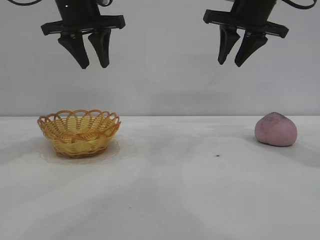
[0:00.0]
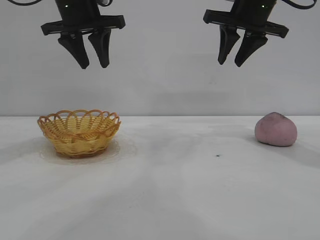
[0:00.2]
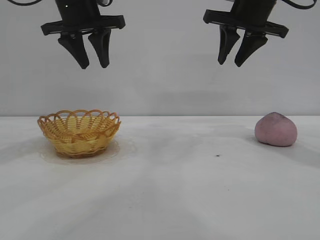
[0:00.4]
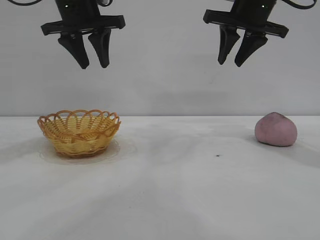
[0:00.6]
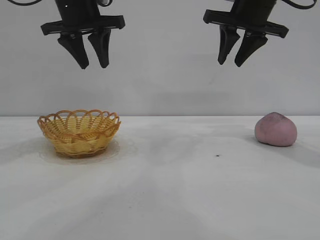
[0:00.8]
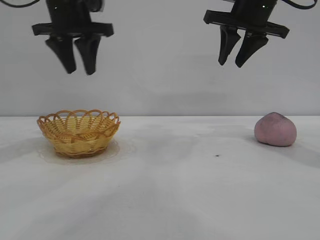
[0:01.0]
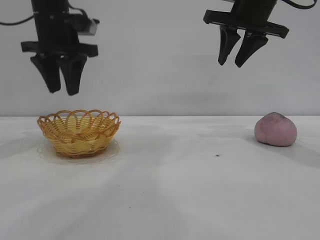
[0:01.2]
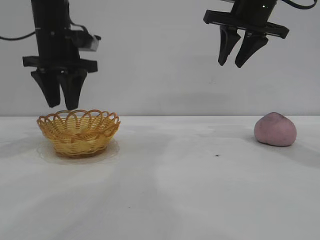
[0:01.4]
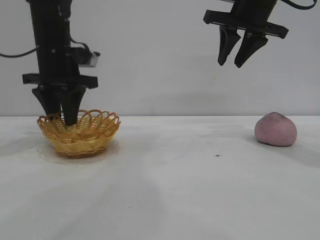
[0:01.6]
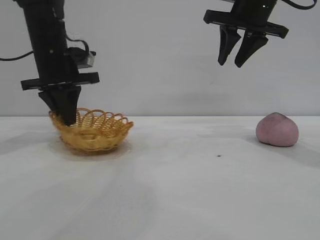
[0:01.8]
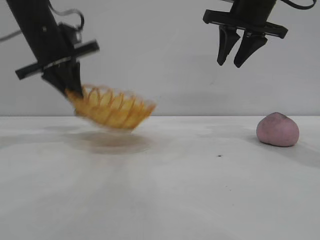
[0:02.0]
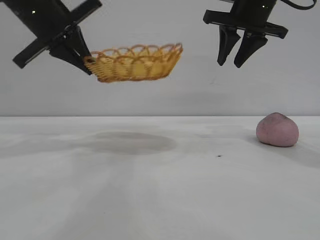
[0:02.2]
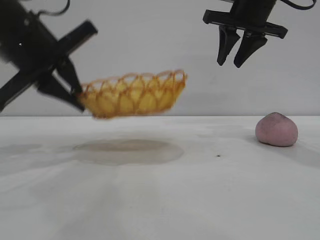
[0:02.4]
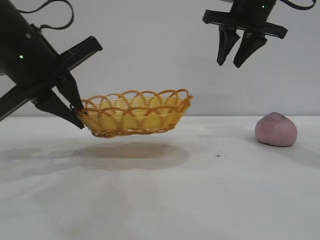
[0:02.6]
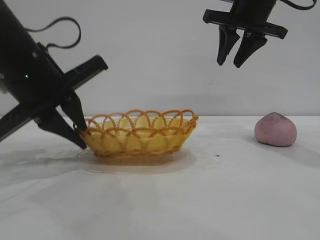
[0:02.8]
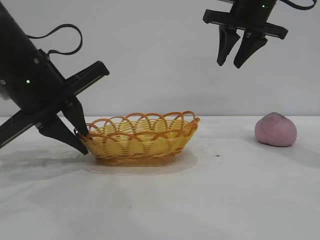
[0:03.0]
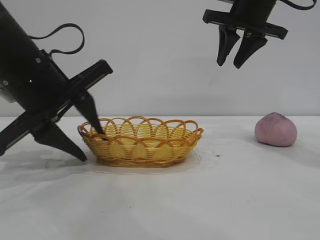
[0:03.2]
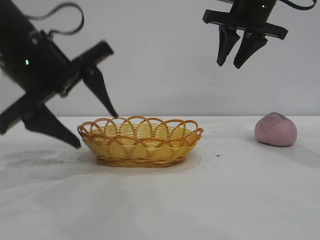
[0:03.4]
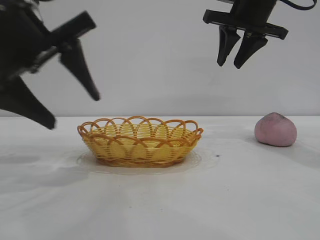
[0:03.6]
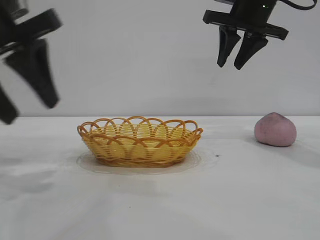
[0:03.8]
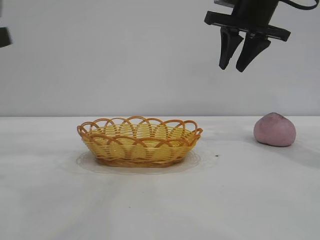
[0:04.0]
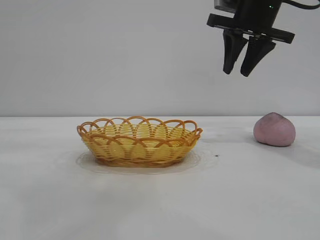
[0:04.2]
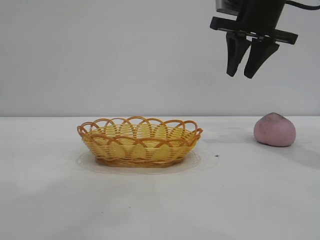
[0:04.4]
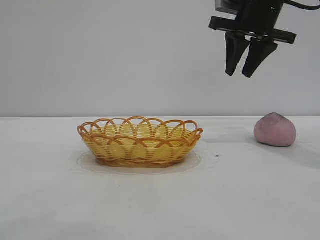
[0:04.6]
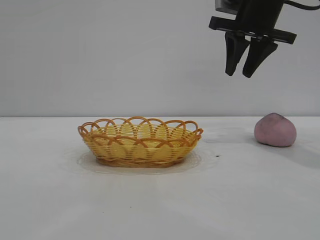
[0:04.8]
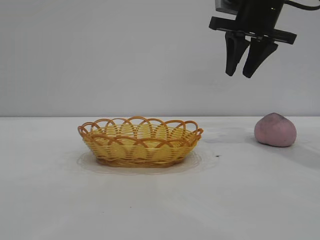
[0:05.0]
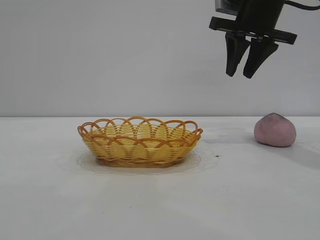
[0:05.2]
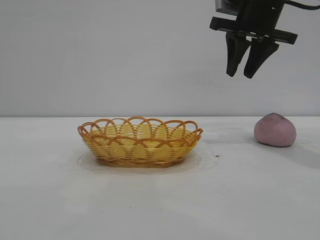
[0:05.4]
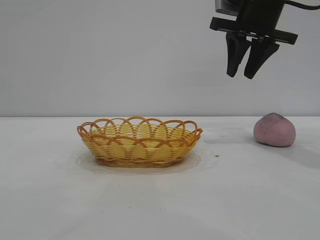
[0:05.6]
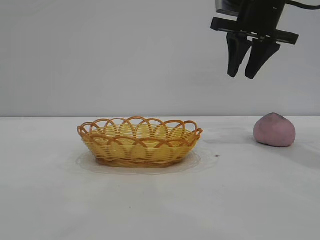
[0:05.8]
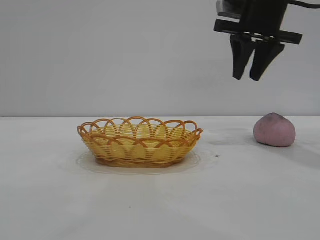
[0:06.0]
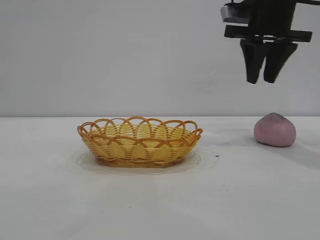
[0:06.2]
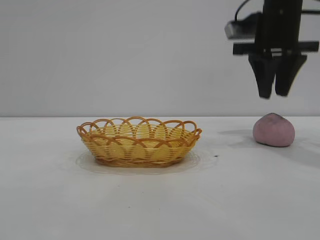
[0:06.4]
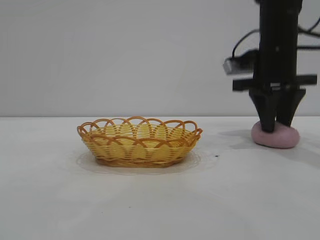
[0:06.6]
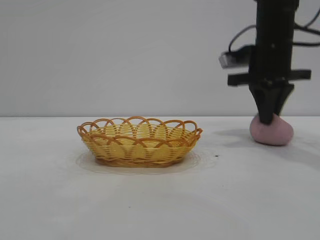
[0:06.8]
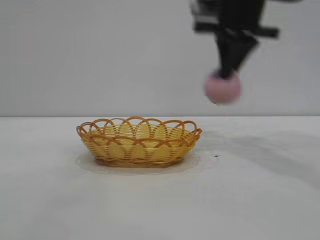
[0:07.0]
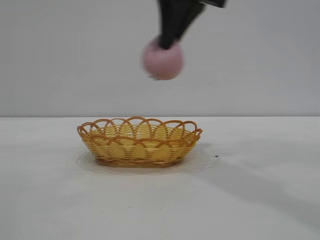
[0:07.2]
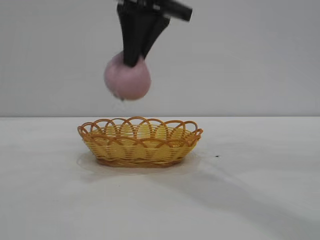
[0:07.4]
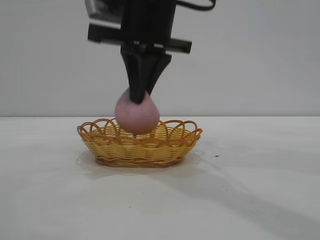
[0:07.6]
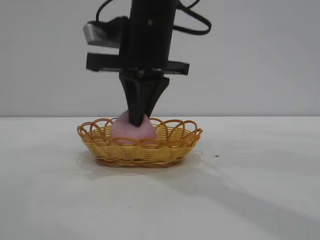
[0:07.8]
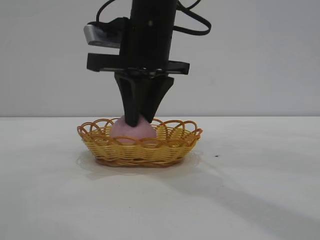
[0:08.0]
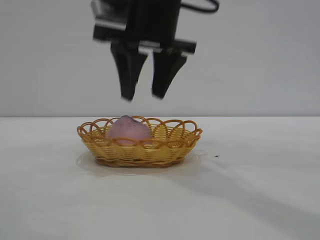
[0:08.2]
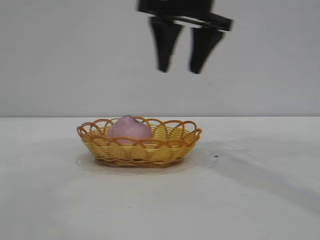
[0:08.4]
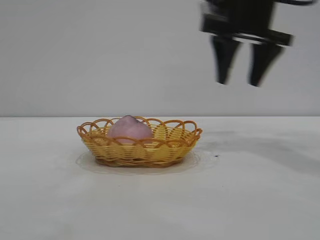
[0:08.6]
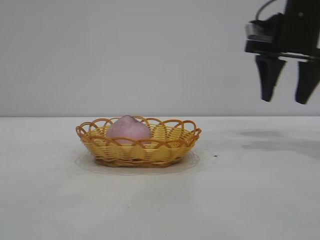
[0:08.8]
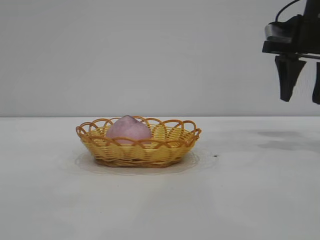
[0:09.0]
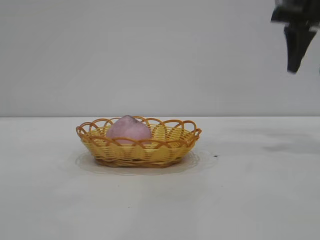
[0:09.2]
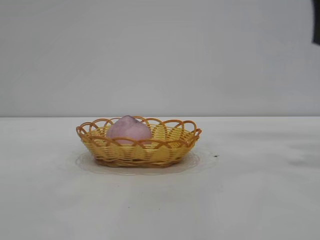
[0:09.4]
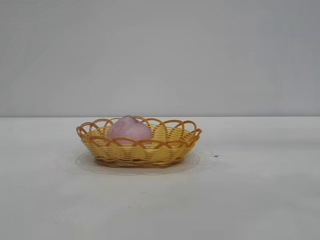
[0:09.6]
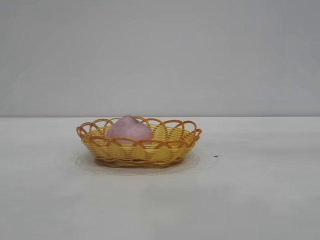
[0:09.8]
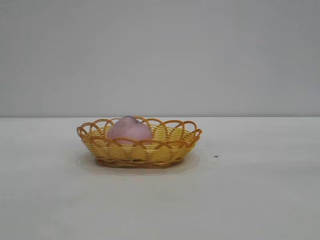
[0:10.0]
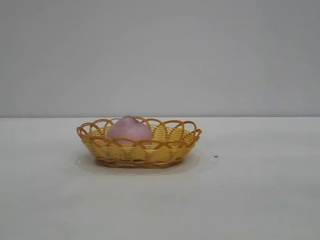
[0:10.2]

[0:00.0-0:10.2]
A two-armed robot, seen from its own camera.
Task of the whole recording: pick up the peach and put it into the basket.
Step, 0:00.0 to 0:03.4: Move the basket to the center of view.
Step, 0:03.6 to 0:06.8: Pick up the peach.
Step, 0:07.0 to 0:08.2: place the peach into the basket.

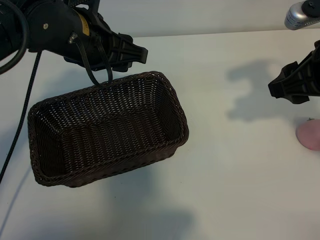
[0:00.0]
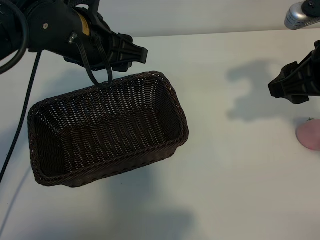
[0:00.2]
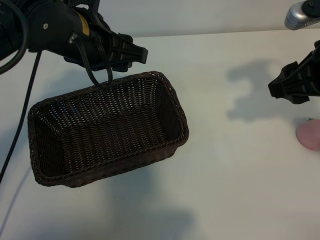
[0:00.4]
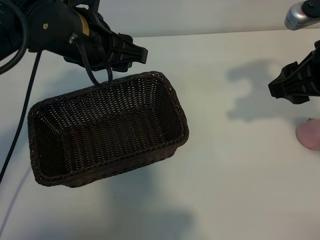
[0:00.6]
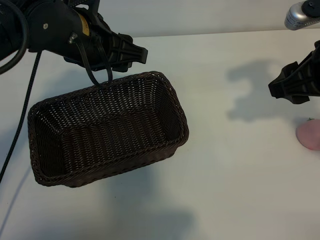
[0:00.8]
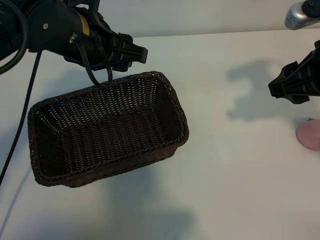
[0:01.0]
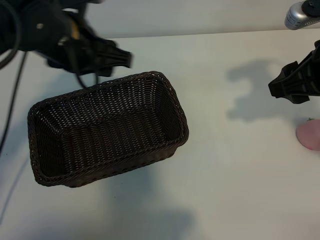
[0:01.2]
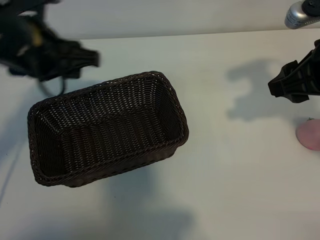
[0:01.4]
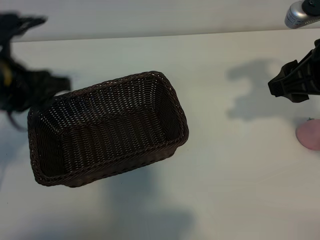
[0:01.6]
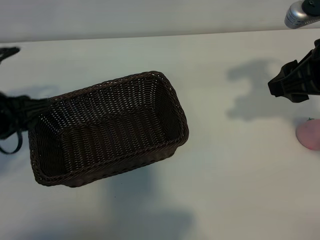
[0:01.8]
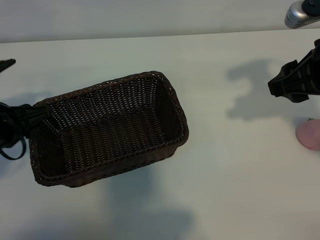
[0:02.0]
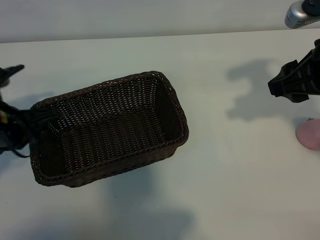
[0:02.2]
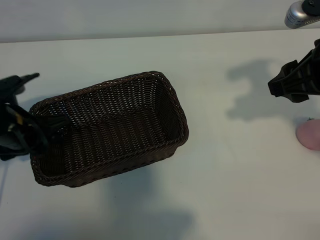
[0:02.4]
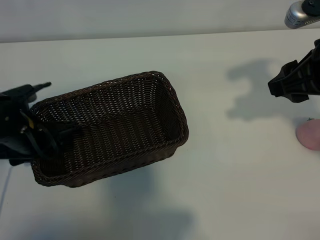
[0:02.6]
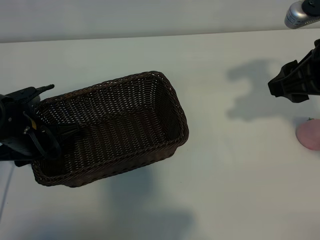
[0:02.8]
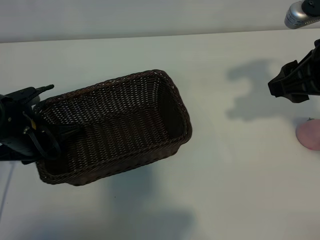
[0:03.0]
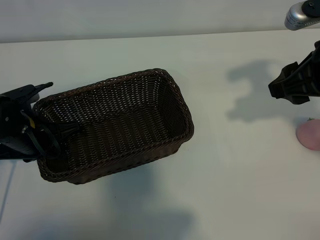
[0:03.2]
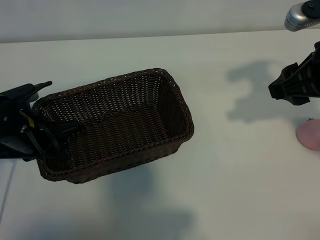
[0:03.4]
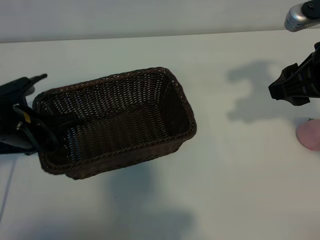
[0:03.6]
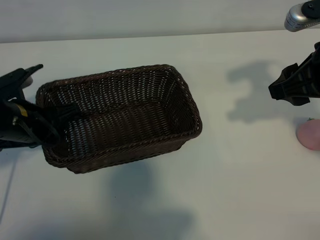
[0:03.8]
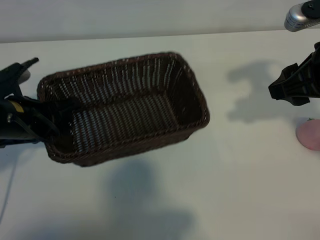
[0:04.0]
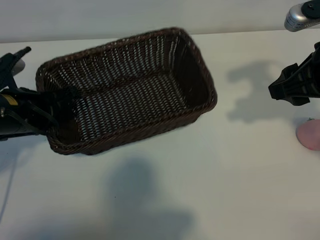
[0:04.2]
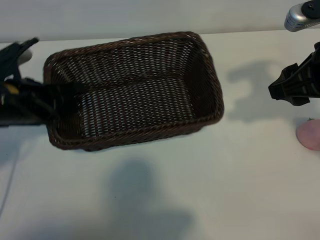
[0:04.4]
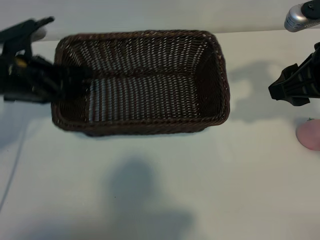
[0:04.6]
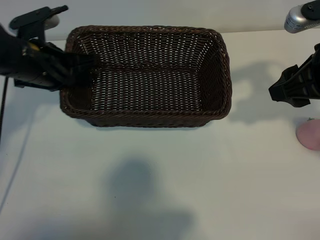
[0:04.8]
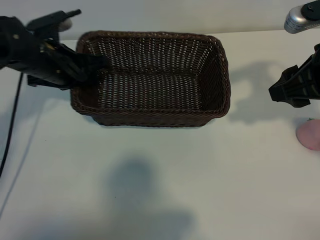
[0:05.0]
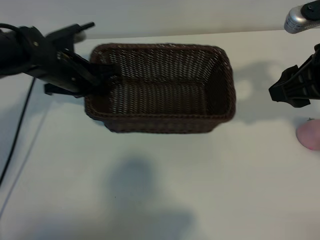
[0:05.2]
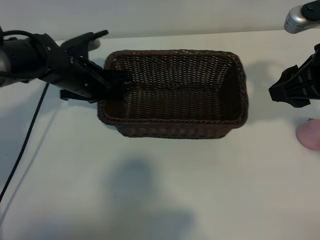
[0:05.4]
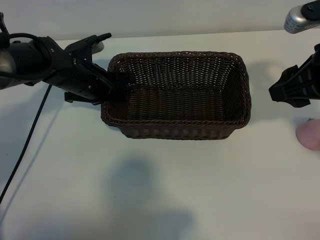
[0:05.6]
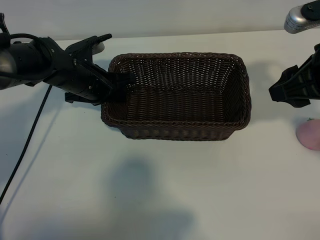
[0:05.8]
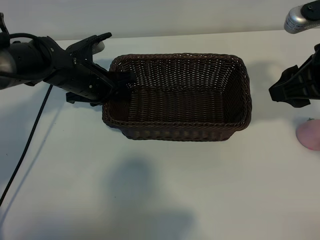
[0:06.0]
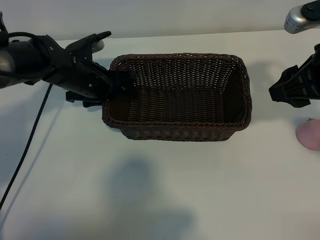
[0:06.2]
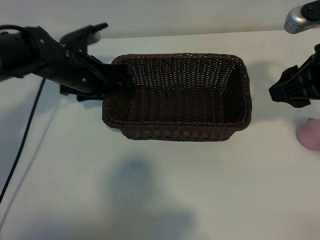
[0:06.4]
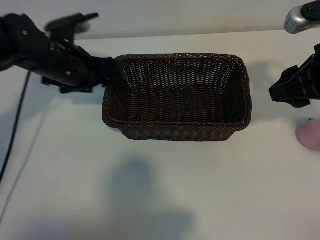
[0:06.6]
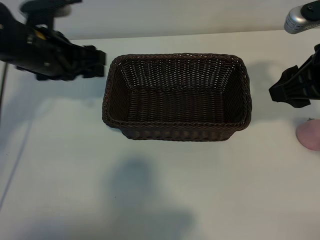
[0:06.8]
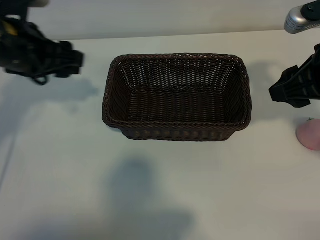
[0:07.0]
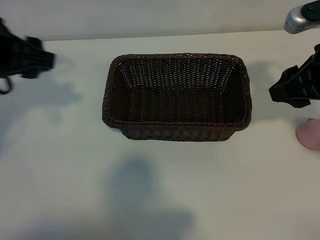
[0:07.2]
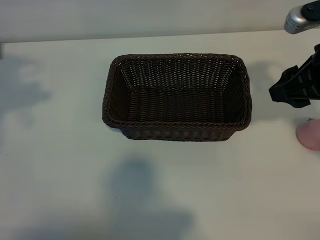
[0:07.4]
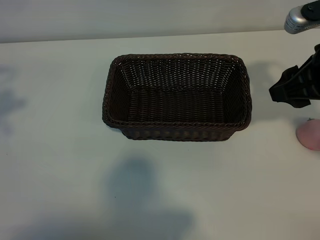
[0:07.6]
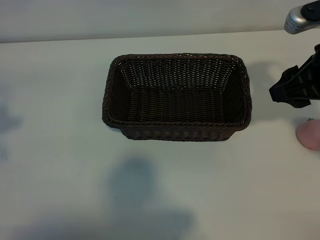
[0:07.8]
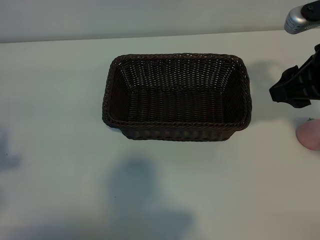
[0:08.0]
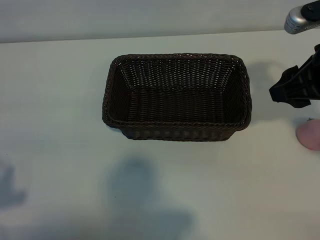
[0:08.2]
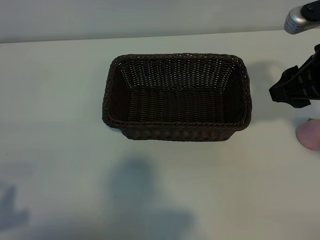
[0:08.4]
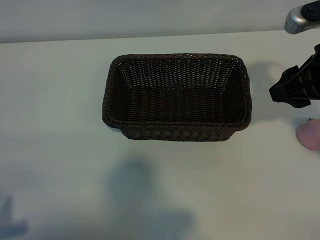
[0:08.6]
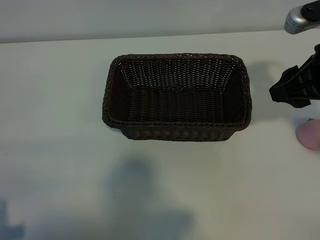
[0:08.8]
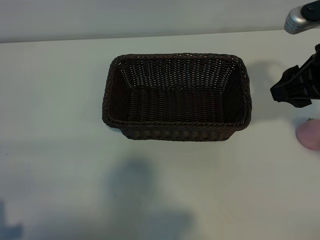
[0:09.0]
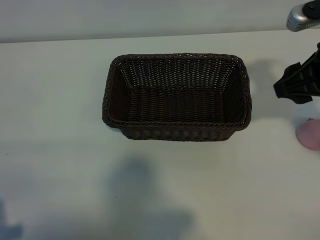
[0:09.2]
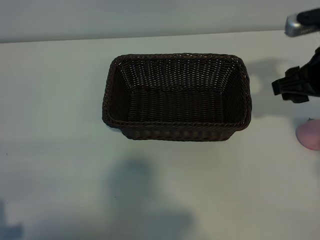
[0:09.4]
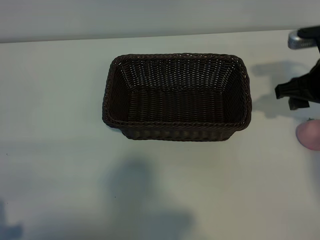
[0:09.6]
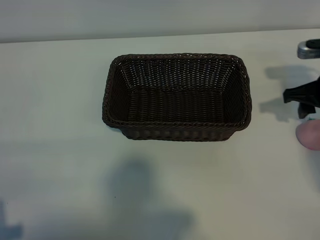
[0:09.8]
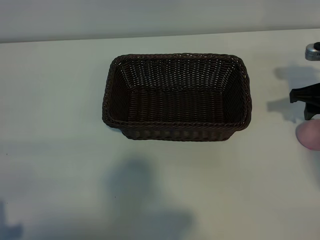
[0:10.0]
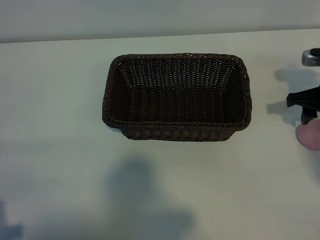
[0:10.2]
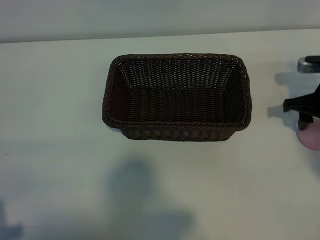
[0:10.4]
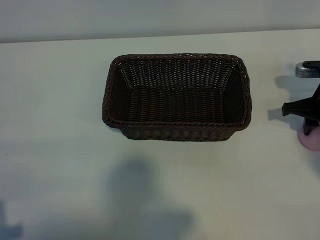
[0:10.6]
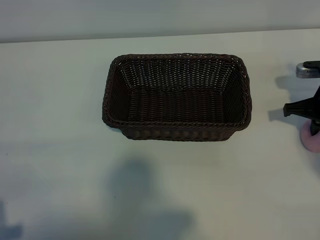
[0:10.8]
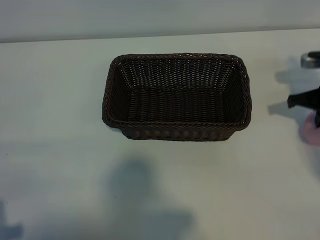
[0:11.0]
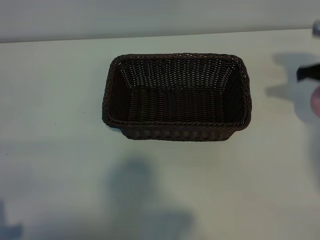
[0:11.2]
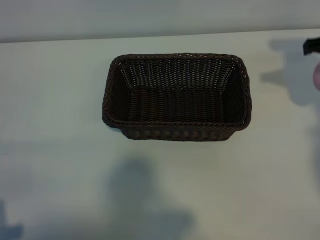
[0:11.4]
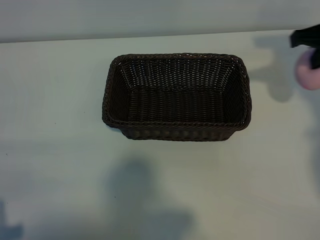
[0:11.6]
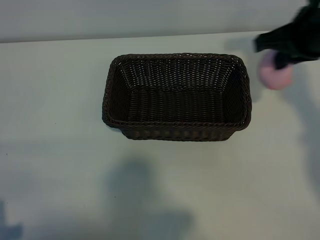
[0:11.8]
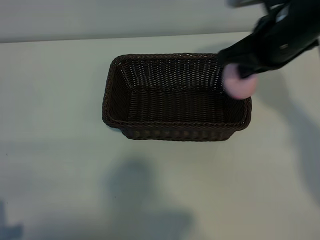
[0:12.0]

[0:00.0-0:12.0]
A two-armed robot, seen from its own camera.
Task of the whole recording: pick up the peach and put it into the basket.
Step, 0:01.2 to 0:03.2: Grasp the basket with left gripper.
Step, 0:03.4 to 0:06.4: Place the basket in the center of view with left gripper.
Step, 0:06.8 to 0:10.8: Grasp the peach with right gripper.
